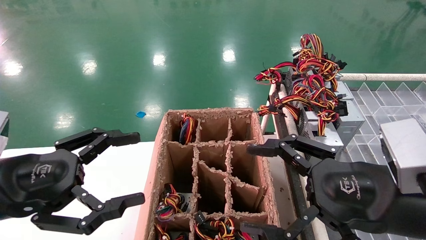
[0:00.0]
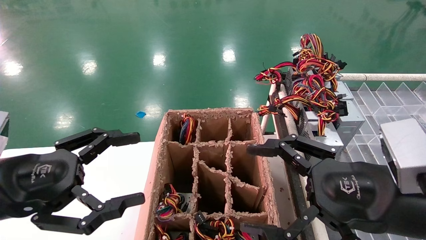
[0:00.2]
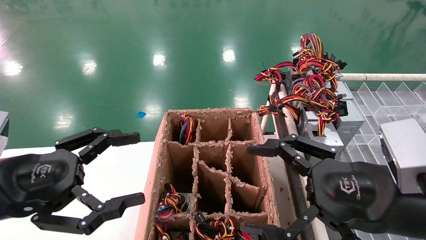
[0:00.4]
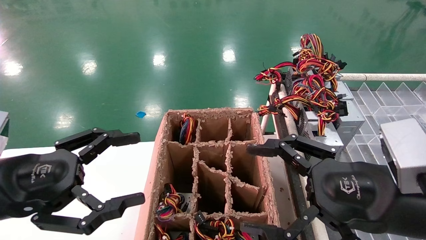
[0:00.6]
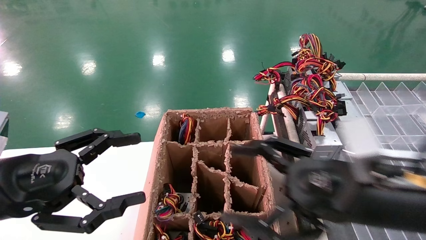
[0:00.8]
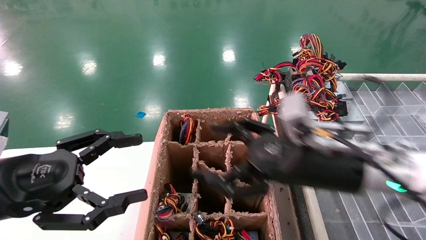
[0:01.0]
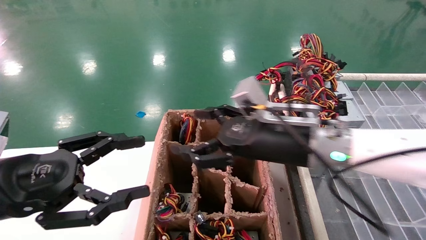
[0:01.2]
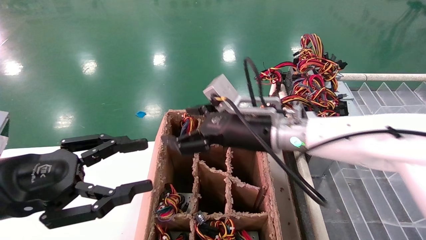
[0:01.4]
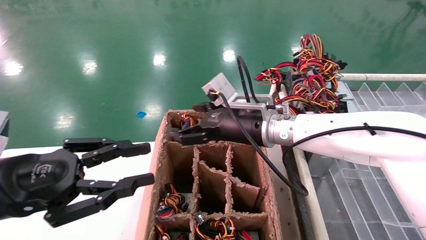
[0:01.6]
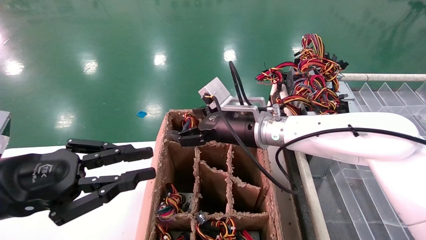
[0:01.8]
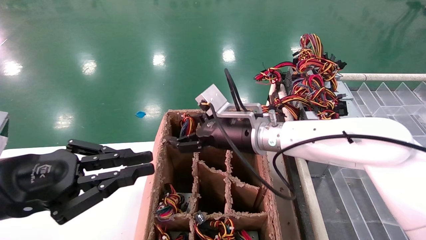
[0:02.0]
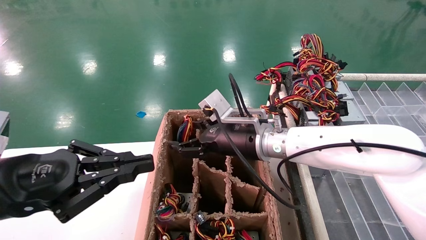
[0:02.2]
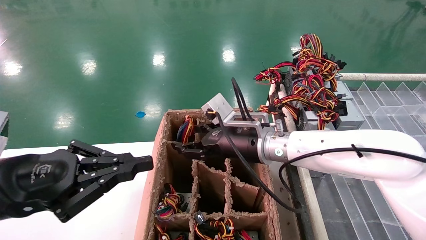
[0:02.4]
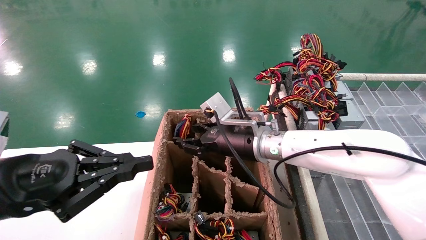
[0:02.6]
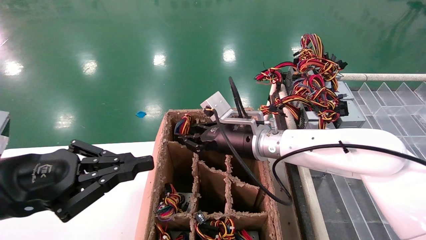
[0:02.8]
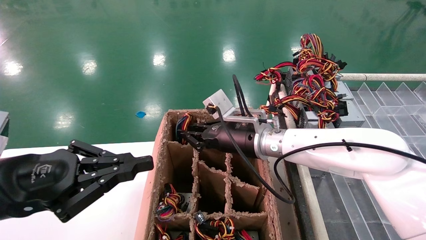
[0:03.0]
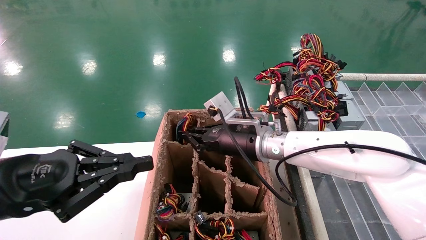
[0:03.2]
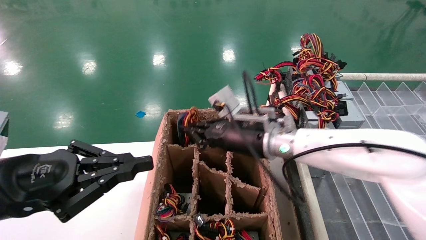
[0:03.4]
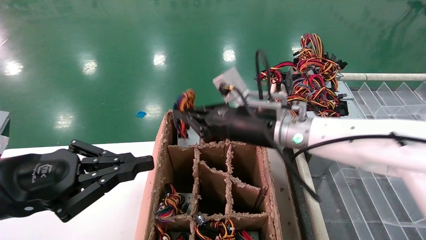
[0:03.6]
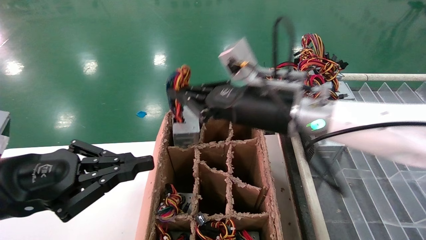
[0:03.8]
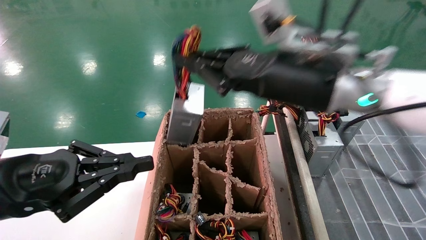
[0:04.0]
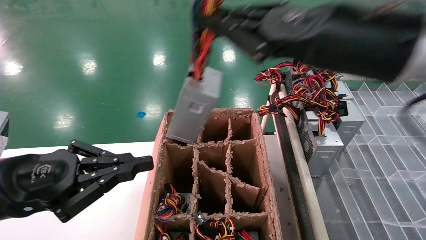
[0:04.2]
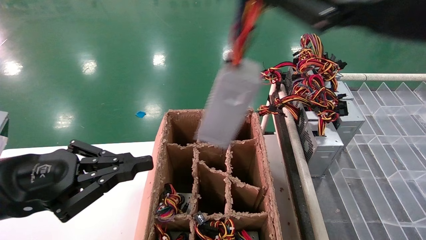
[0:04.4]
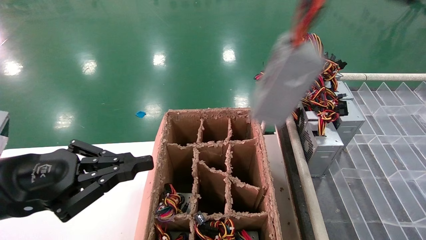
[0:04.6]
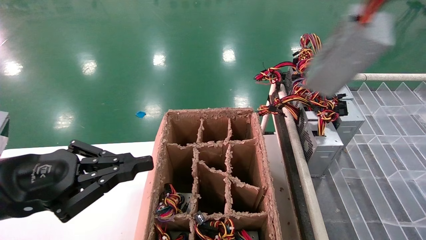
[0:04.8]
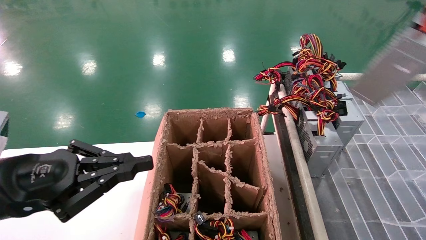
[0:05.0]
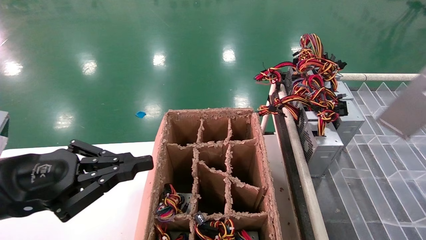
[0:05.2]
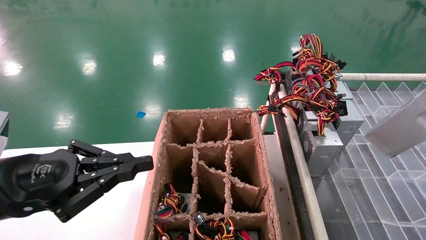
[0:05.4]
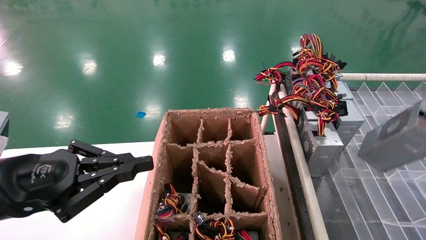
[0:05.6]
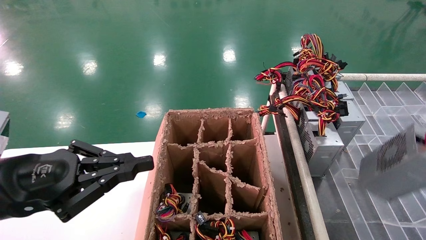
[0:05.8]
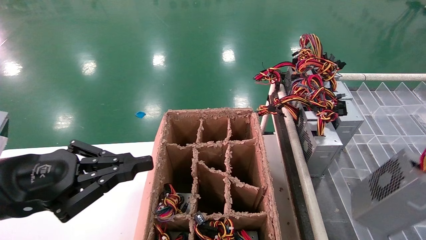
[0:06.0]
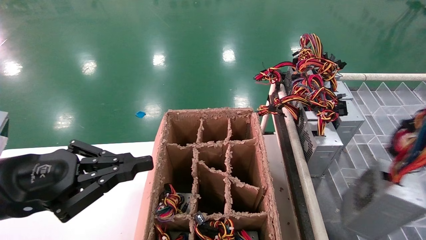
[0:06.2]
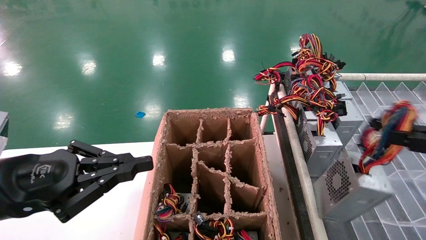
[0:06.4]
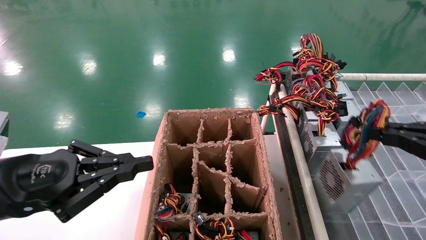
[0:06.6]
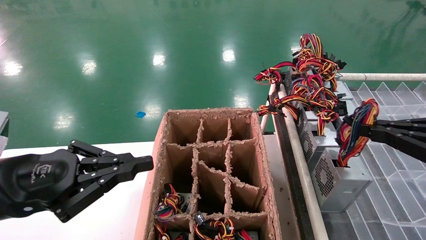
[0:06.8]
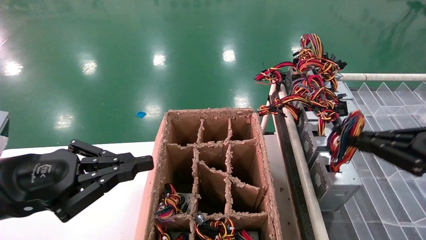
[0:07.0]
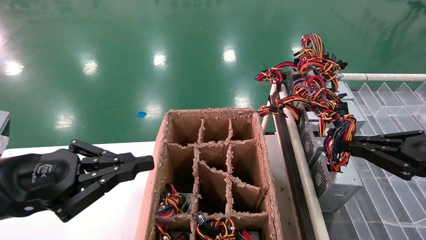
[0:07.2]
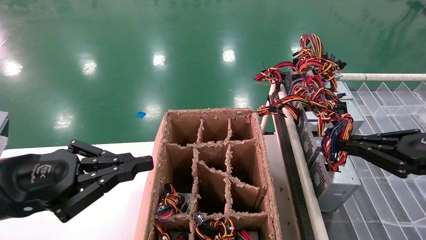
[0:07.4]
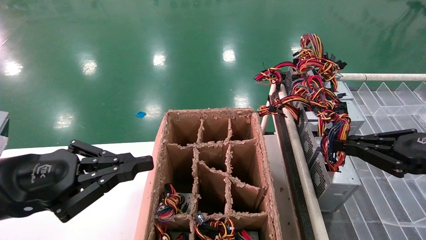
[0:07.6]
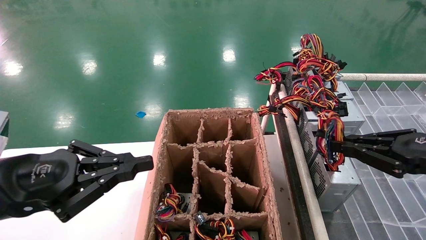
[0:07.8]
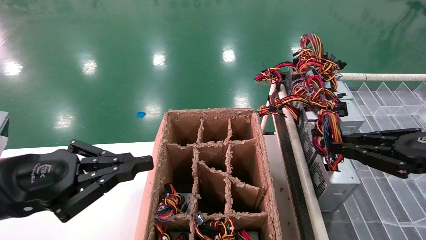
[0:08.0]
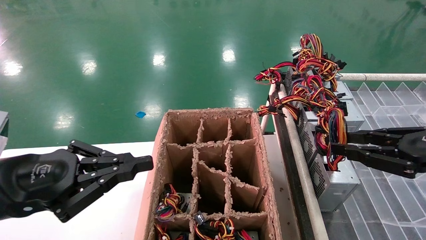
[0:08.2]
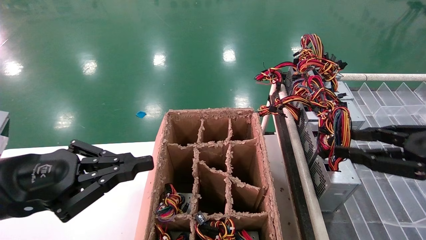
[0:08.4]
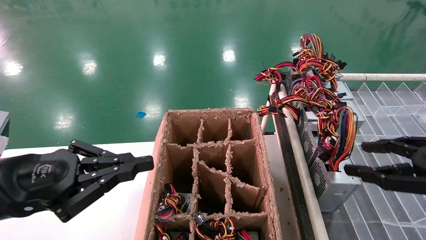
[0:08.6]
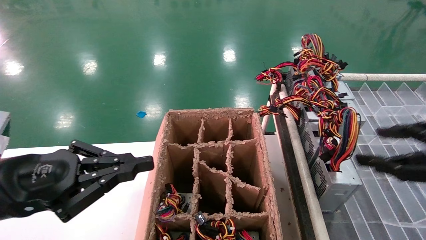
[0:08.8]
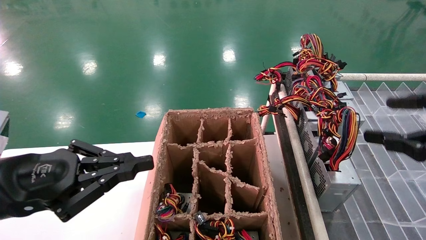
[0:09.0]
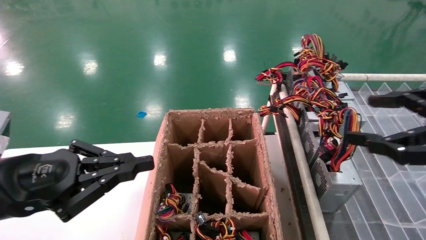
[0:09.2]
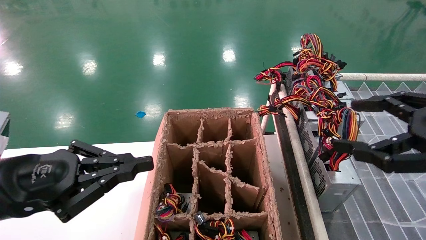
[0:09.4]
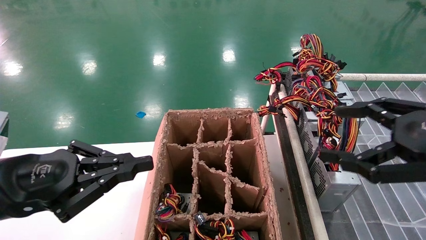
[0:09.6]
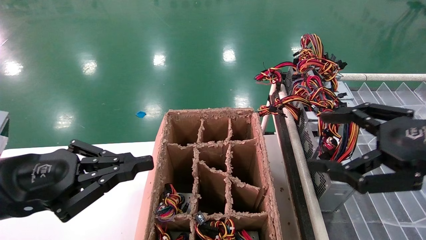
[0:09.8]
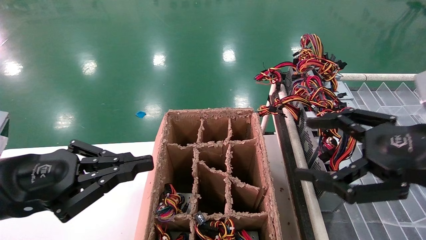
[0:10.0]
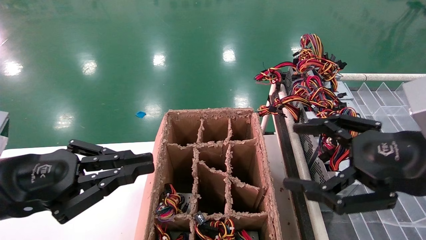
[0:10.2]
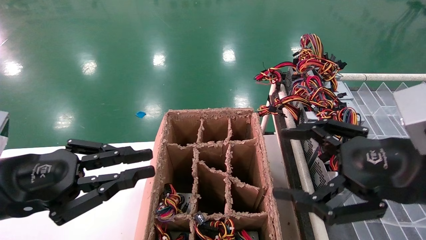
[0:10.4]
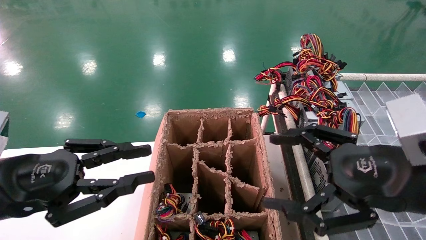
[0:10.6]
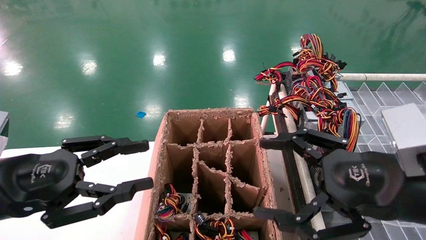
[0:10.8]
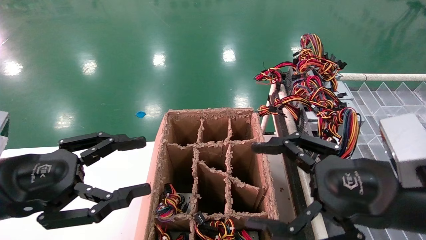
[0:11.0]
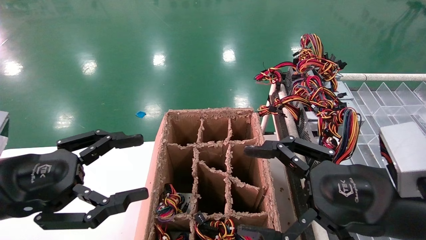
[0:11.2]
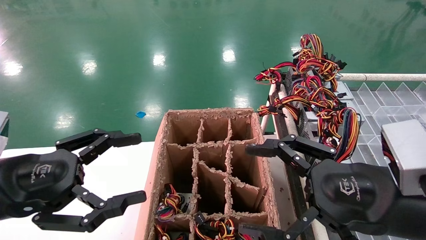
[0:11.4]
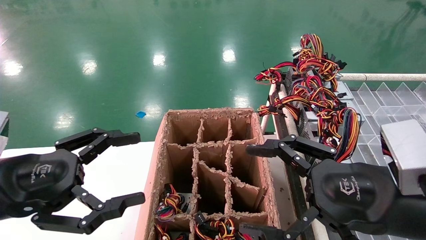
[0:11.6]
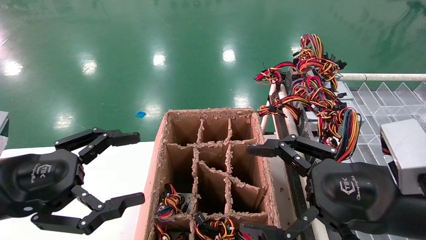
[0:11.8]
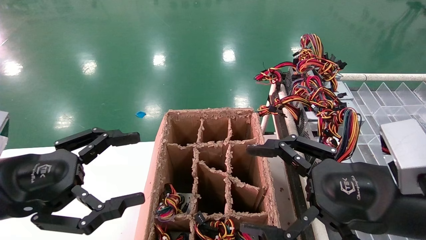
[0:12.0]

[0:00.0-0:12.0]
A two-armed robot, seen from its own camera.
Step, 0:01.2 to 0:03.2: Grab the main unit power supply from the containment box.
Step, 0:03.4 to 0:08.4: Place the main unit power supply in the designated area.
0:00.0 to 0:01.6: The right gripper is displaced forward and to the left by approximately 25 cm. The left gripper closes.
0:01.6 to 0:03.0: The left gripper closes. The right gripper closes.
0:03.0 to 0:04.4: The right gripper shifts some 35 cm upward, backward and to the right.
0:04.4 to 0:06.0: The right gripper goes some 25 cm to the right, backward and downward.
0:06.0 to 0:07.6: The right gripper shifts about 15 cm forward, to the left and downward.
0:07.6 to 0:09.0: The right gripper moves about 5 cm, and opens its fingers.
0:09.0 to 0:10.4: The right gripper is displaced to the left and downward by approximately 10 cm.
0:10.4 to 0:12.0: The right gripper changes place by roughly 5 cm. Meanwhile the left gripper opens its fingers.

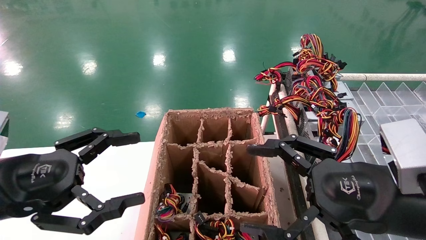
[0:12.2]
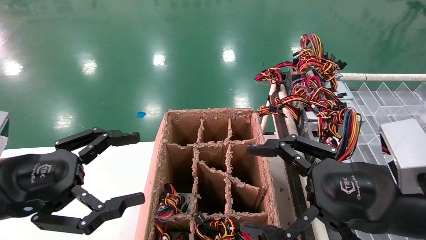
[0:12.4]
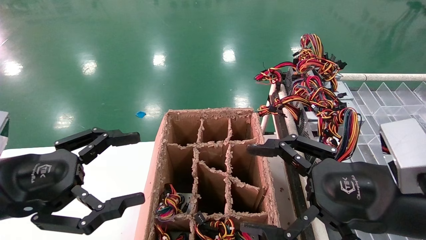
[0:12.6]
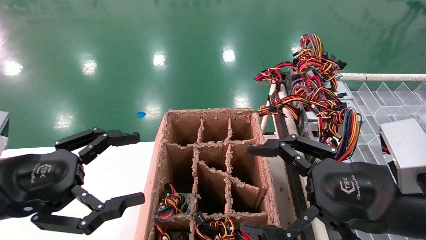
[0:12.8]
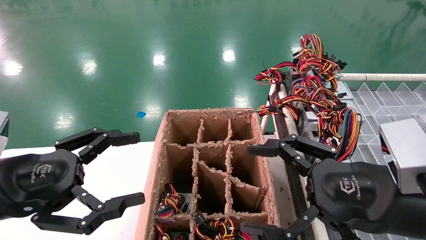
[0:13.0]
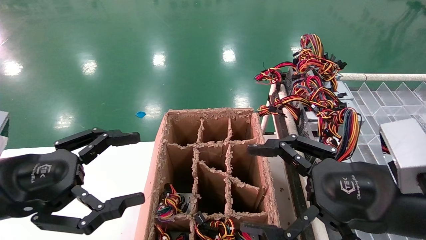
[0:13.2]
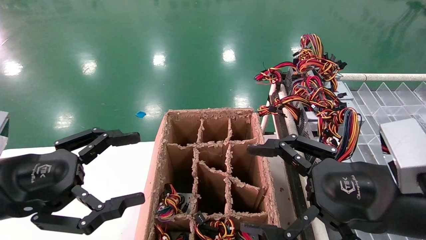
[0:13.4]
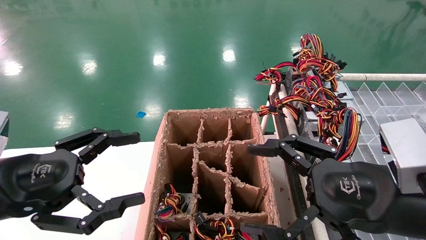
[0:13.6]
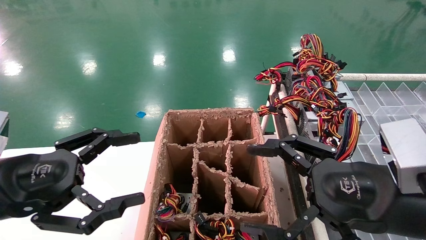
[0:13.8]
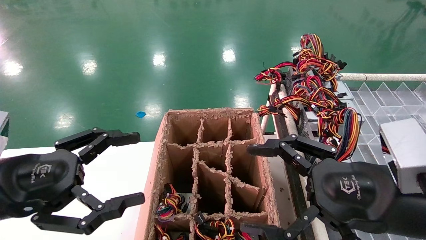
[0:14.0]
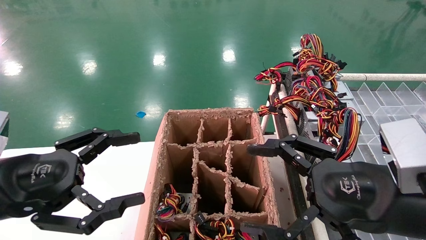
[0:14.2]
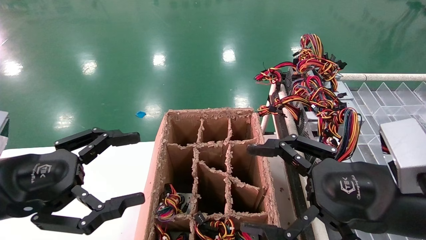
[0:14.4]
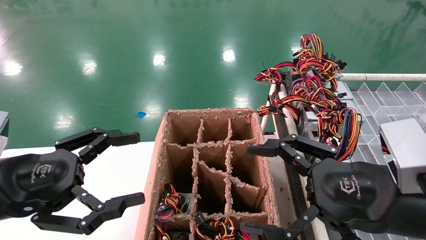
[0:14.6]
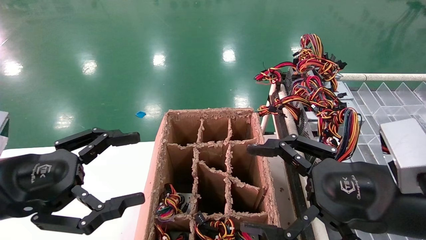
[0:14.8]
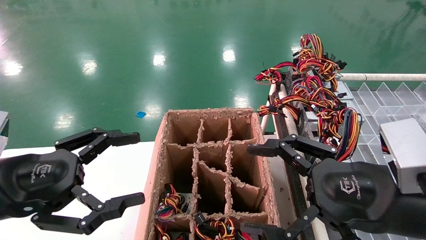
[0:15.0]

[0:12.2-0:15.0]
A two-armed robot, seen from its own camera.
0:12.2 to 0:15.0: Neither gripper changes place.

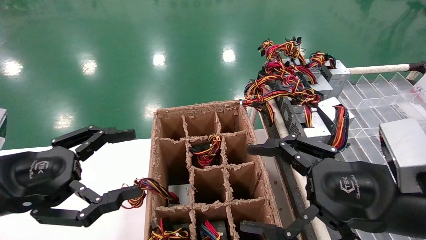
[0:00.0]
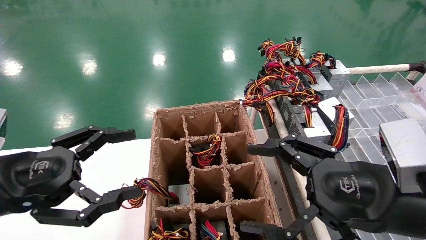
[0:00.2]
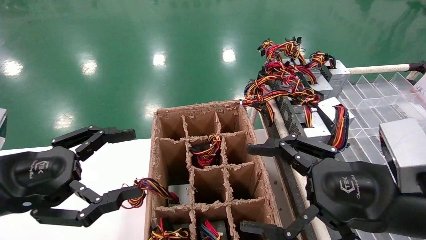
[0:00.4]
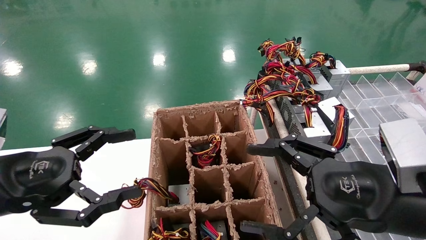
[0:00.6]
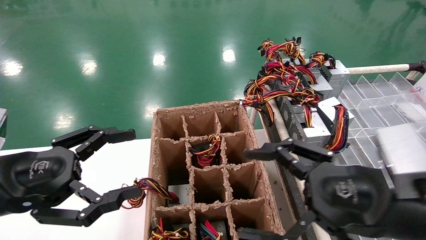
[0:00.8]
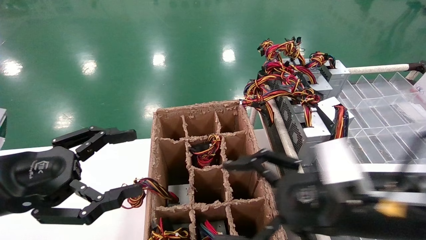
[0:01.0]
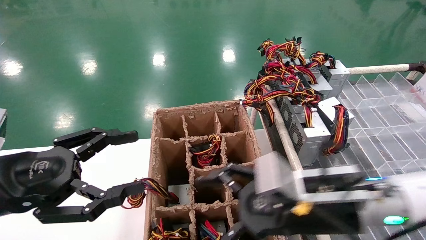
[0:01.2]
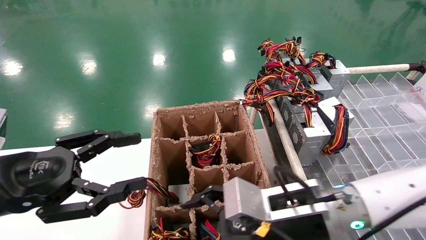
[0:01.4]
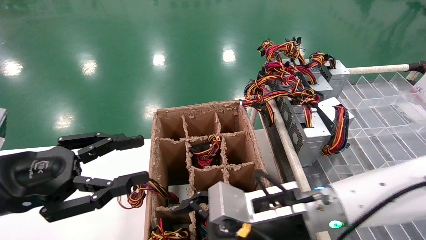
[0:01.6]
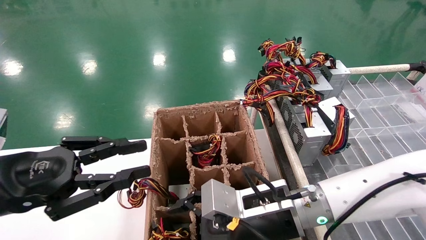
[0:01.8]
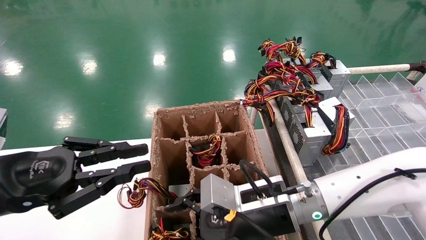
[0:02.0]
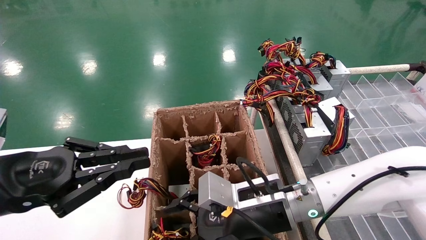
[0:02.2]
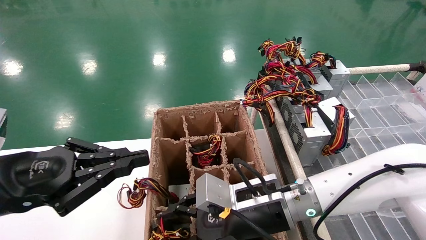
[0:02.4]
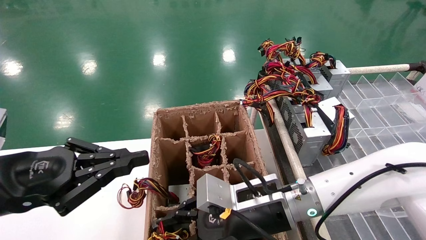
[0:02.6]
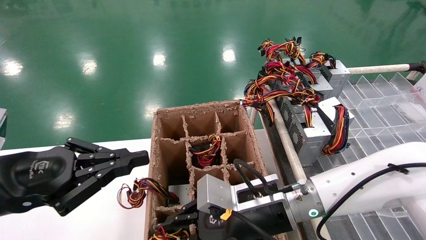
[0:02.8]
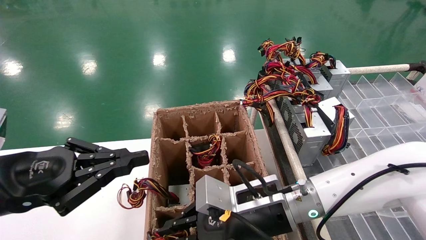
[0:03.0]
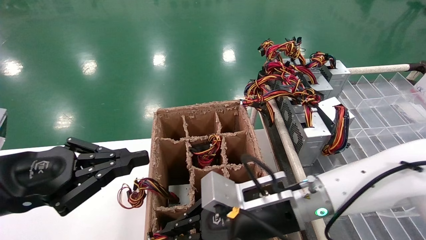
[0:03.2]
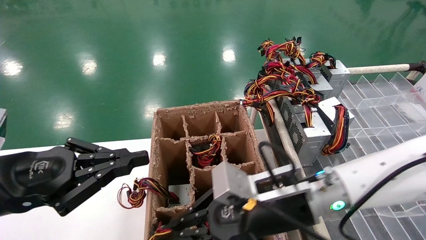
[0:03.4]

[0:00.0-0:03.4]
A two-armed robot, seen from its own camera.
Step, 0:01.2 to 0:03.2: Grab the main unit power supply from the containment box.
0:00.0 to 0:01.6: The left gripper closes up; the right gripper shifts some 15 cm to the left, forward and downward.
0:01.6 to 0:03.4: The left gripper closes its fingers, while the right gripper closes.
